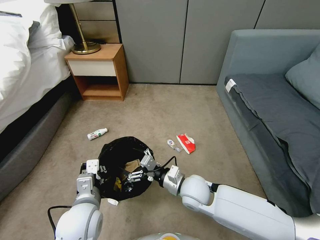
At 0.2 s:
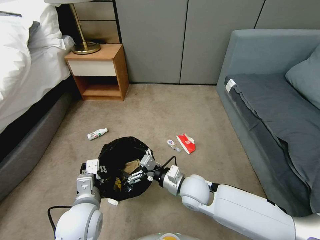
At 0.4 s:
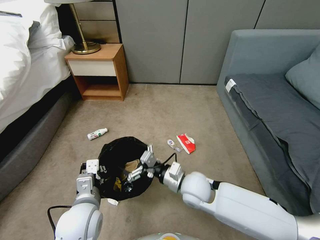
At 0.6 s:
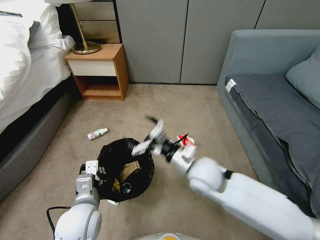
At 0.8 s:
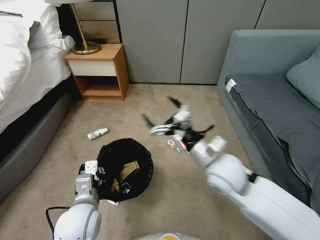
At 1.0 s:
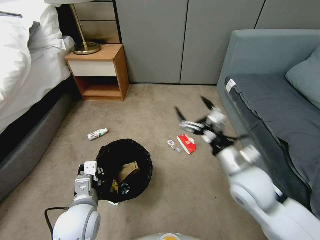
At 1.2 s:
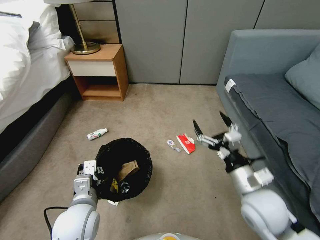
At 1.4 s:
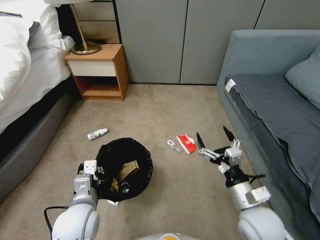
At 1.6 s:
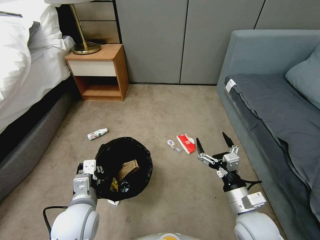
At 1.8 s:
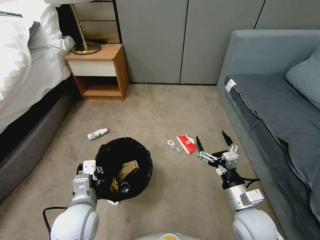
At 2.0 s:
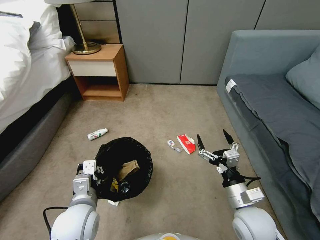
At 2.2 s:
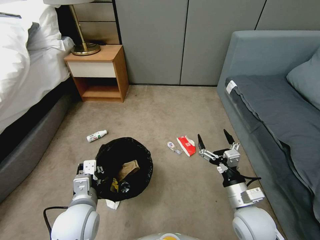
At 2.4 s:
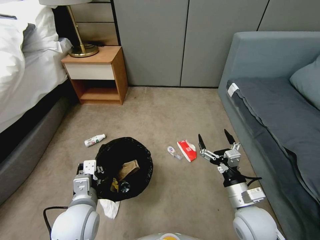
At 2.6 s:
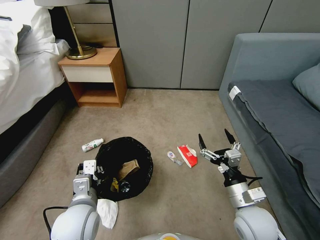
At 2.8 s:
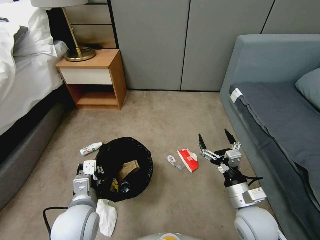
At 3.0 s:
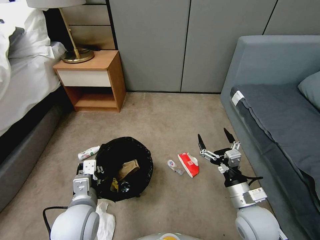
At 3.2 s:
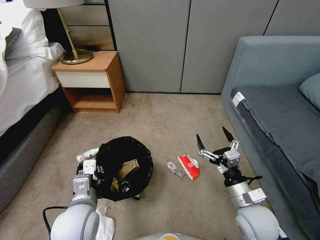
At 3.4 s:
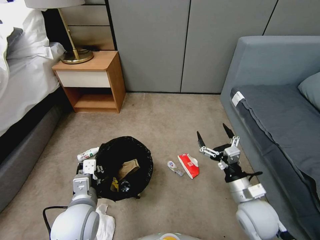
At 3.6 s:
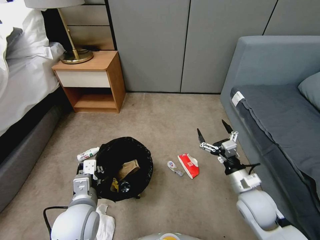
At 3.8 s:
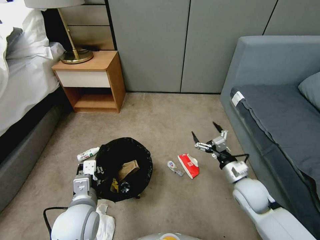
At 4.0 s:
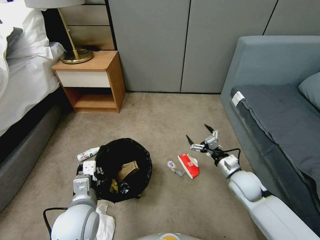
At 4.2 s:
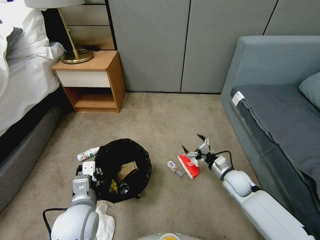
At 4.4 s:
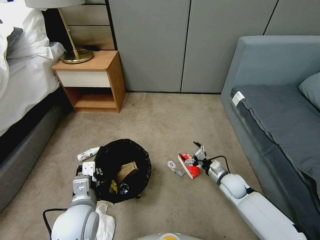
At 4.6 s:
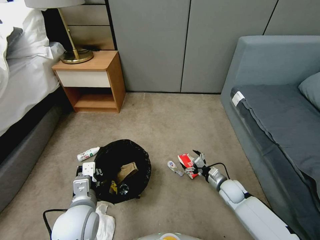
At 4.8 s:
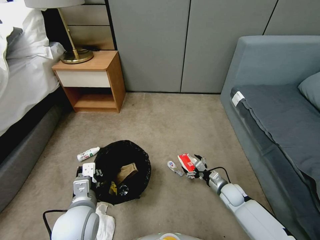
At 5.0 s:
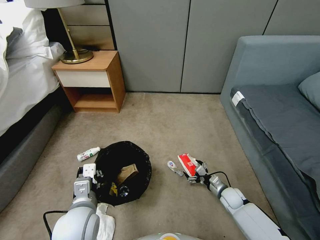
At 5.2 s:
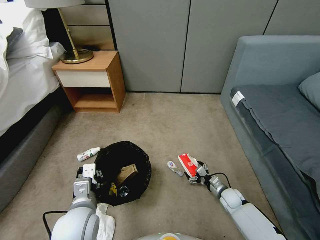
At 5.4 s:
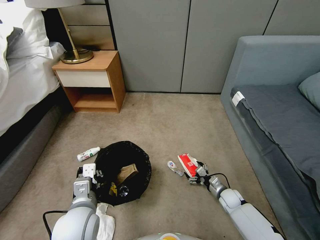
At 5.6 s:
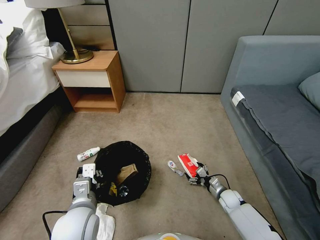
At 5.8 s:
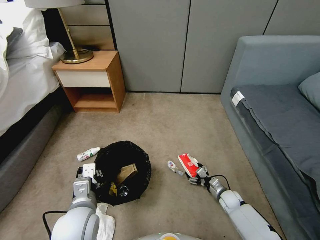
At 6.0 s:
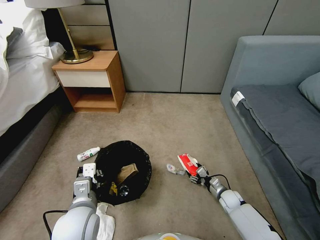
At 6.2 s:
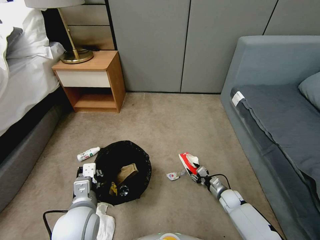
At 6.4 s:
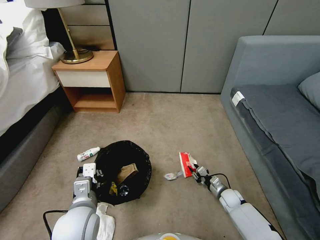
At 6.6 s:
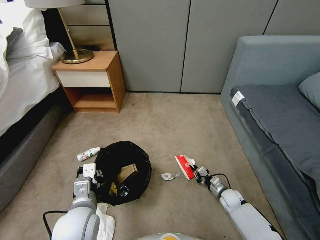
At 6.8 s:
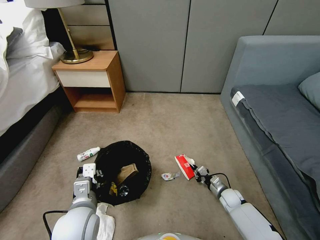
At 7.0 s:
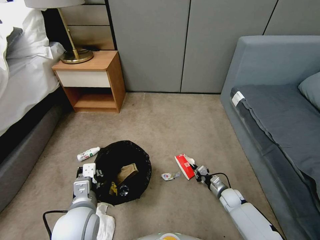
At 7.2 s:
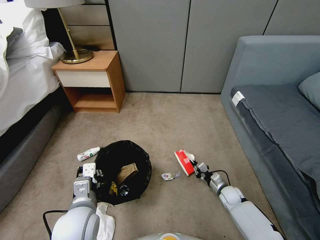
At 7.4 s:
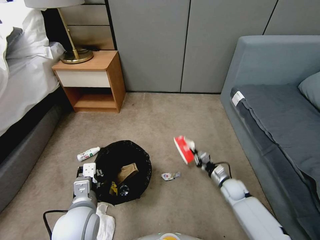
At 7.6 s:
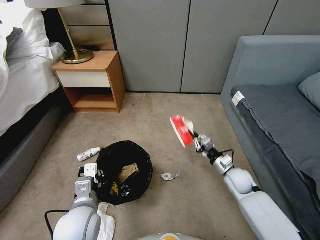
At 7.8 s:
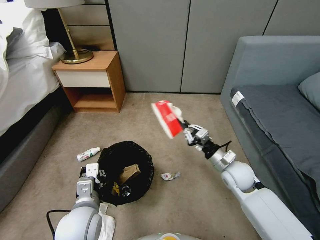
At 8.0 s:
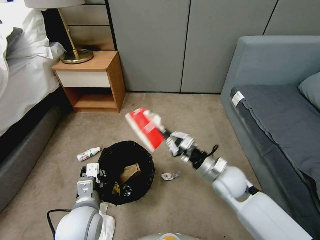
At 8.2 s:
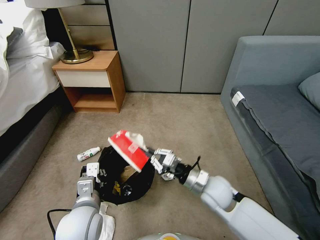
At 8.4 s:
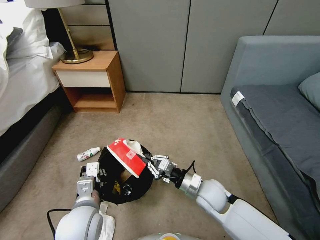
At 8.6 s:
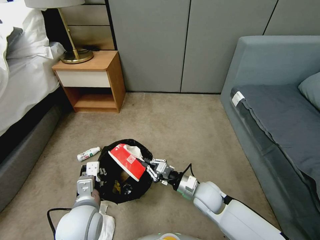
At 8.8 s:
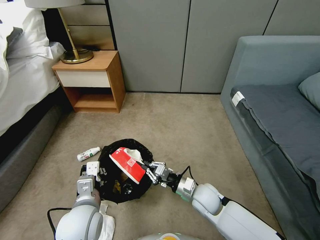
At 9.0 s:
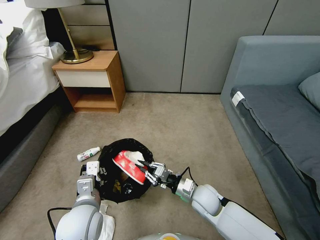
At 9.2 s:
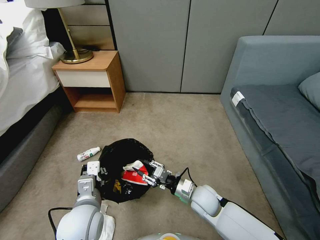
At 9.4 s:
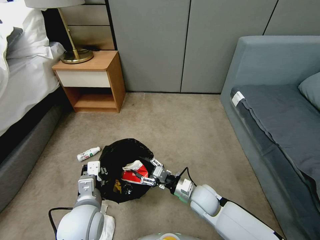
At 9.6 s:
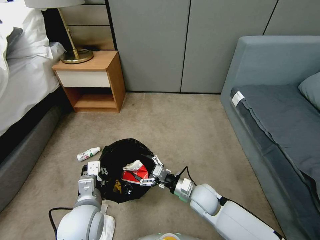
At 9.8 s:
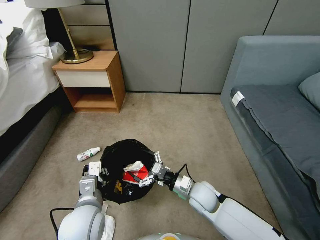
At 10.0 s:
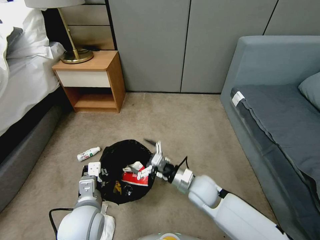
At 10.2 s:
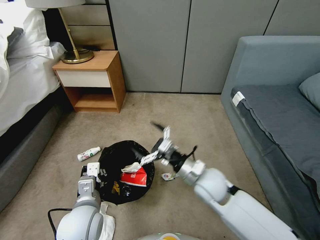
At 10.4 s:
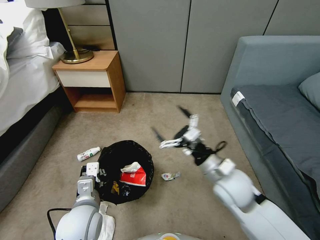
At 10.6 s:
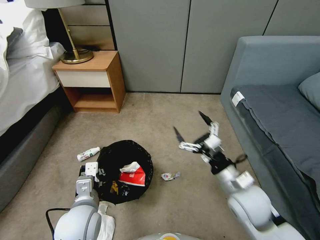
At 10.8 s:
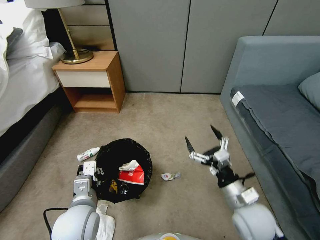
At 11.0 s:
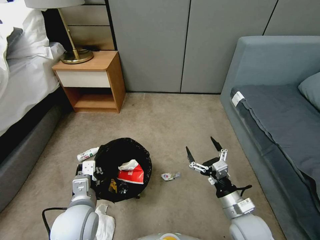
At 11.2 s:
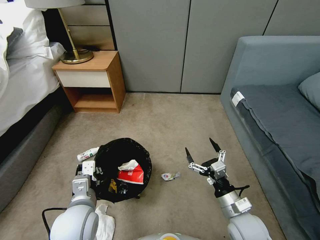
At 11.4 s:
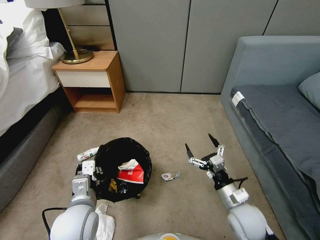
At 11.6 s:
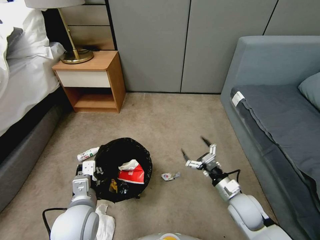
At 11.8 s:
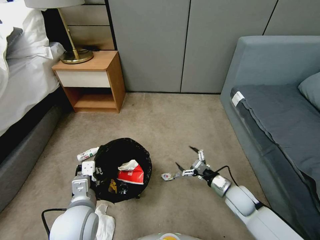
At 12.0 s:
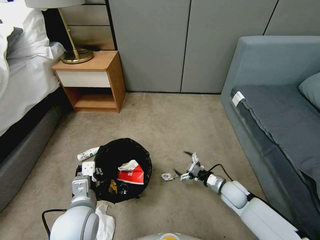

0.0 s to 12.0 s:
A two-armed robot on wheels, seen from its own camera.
Task of the whole recording: Pick up the trash bin, then pick up the garbage from the floor and place it into the trash bin.
0.0 to 1.6 s: The right gripper moves to the right and backward, approximately 20 cm.
3.0 to 4.4 s: The right gripper heads forward and downward, covering some 20 cm.
4.4 to 6.0 s: The right gripper travels downward by about 15 cm.
6.0 to 7.6 s: The right gripper shifts approximately 15 cm upward, and closes its fingers.
7.6 to 9.0 s: The right gripper travels to the left and backward by approximately 15 cm.
9.0 to 10.4 s: The right gripper travels upward by roughly 15 cm, and opens its fingers.
10.4 to 12.0 s: The right gripper is displaced downward and to the right by some 25 cm.

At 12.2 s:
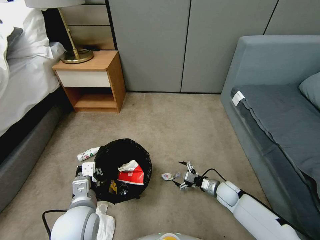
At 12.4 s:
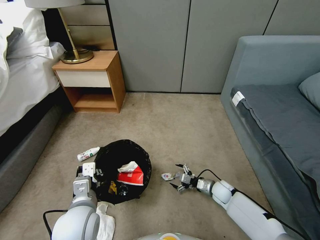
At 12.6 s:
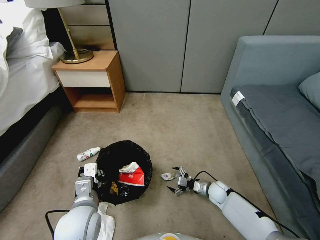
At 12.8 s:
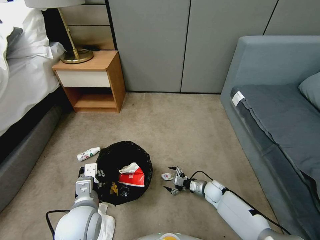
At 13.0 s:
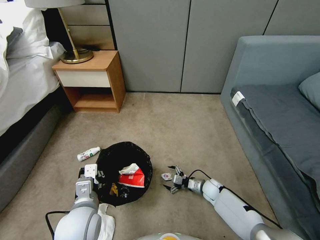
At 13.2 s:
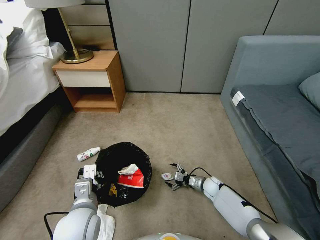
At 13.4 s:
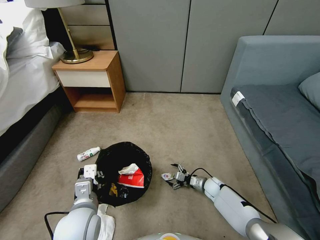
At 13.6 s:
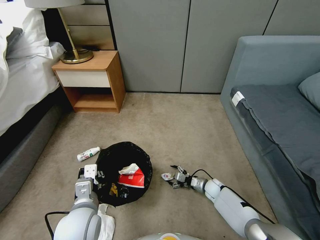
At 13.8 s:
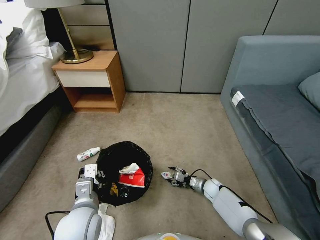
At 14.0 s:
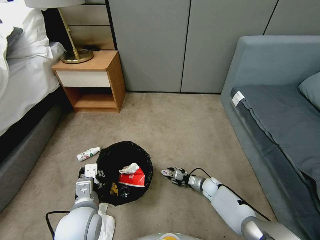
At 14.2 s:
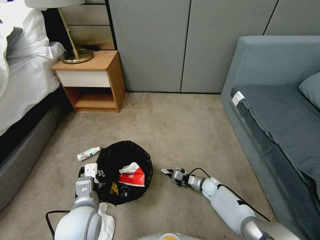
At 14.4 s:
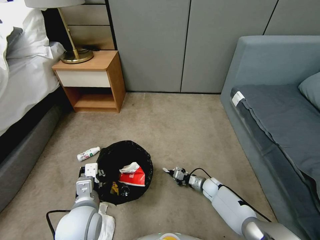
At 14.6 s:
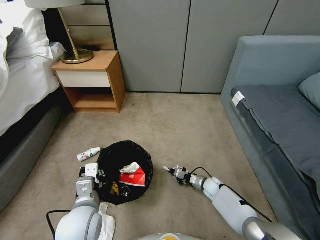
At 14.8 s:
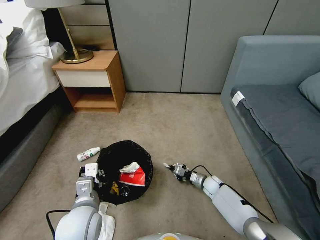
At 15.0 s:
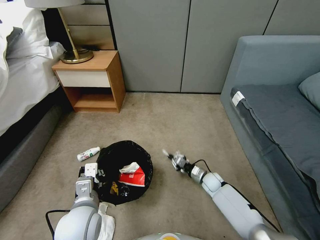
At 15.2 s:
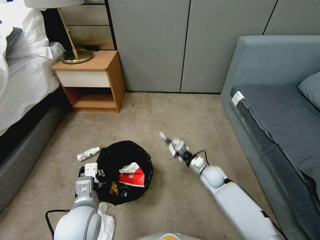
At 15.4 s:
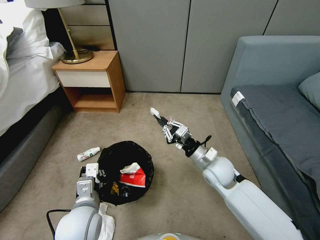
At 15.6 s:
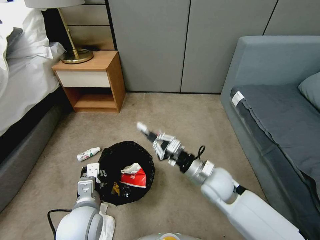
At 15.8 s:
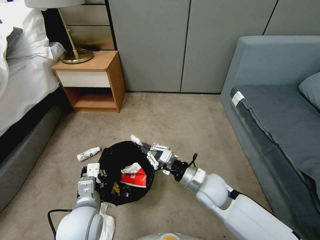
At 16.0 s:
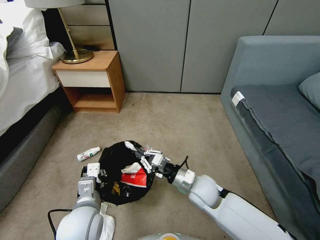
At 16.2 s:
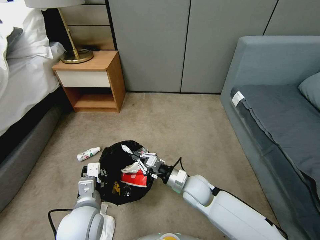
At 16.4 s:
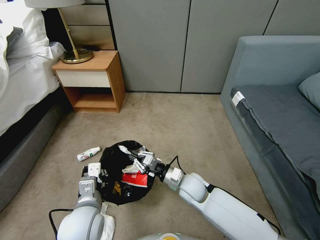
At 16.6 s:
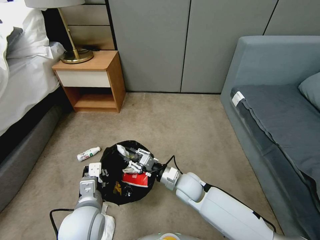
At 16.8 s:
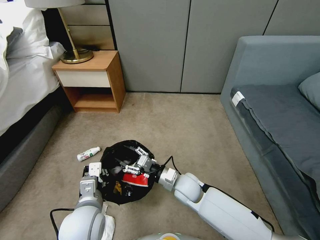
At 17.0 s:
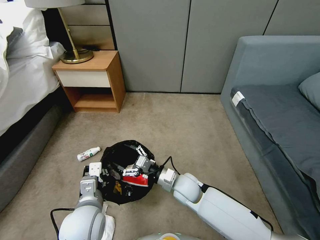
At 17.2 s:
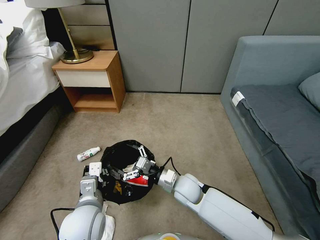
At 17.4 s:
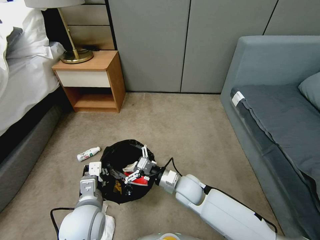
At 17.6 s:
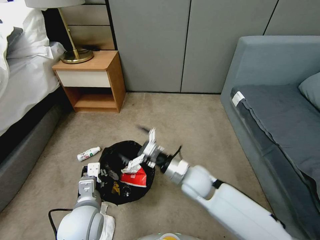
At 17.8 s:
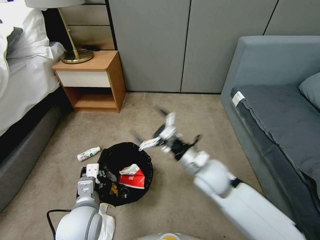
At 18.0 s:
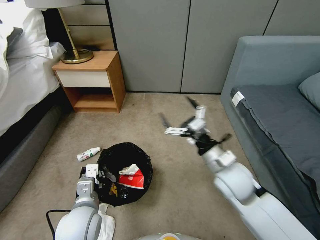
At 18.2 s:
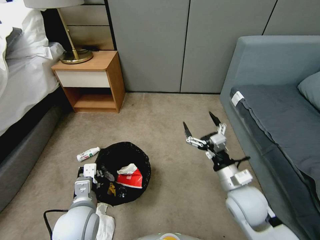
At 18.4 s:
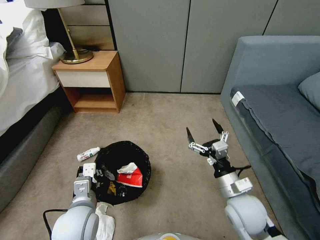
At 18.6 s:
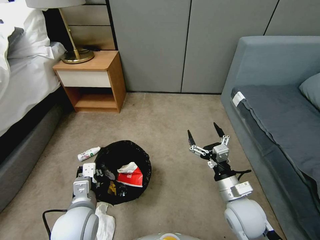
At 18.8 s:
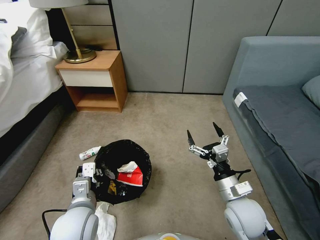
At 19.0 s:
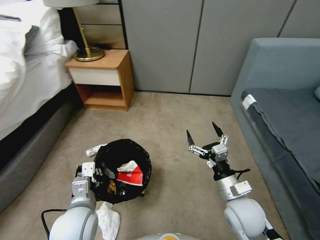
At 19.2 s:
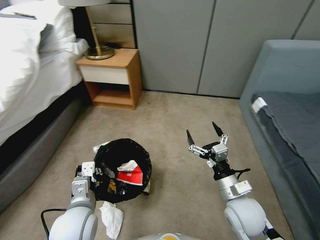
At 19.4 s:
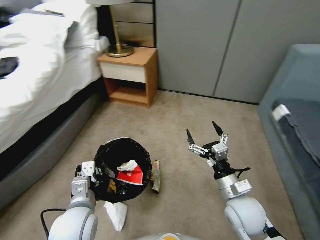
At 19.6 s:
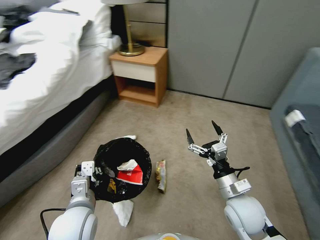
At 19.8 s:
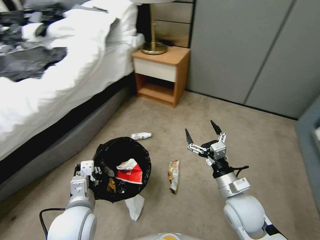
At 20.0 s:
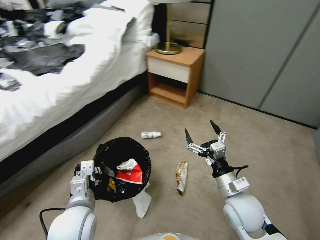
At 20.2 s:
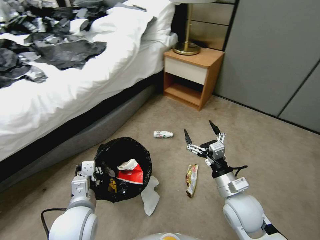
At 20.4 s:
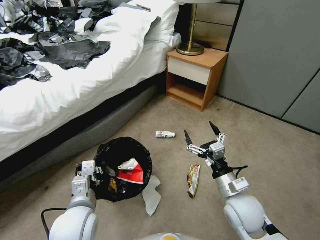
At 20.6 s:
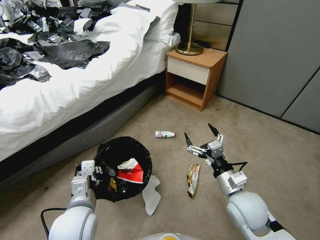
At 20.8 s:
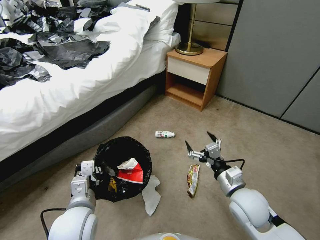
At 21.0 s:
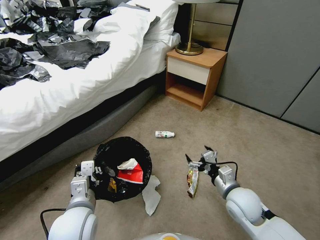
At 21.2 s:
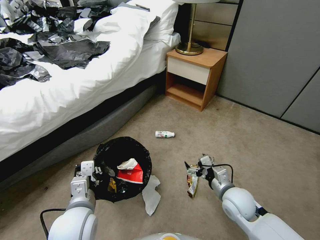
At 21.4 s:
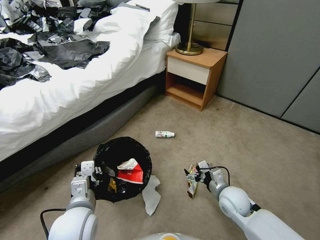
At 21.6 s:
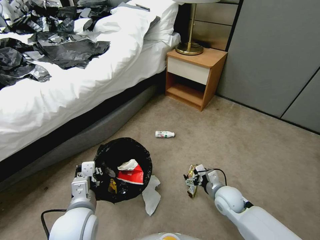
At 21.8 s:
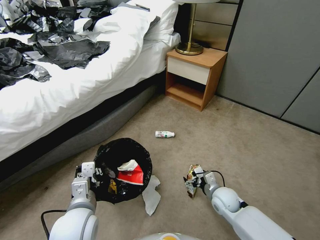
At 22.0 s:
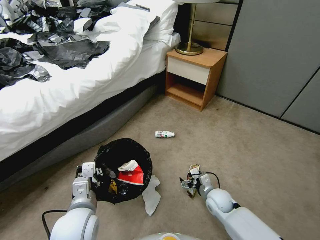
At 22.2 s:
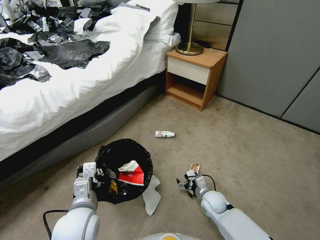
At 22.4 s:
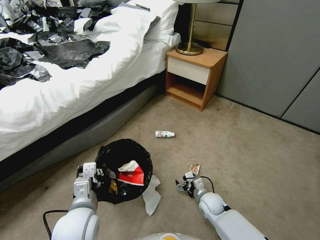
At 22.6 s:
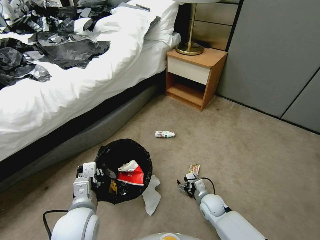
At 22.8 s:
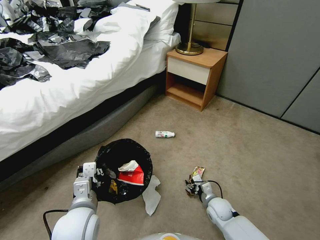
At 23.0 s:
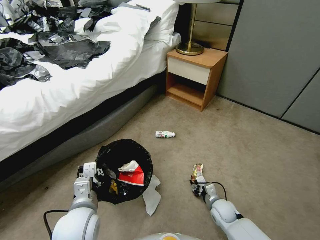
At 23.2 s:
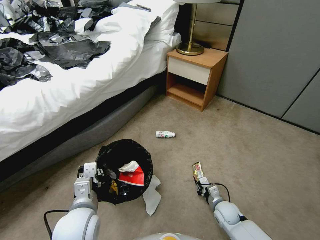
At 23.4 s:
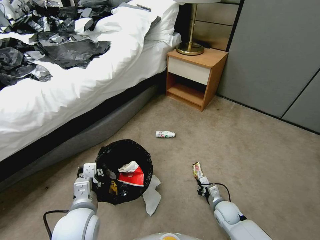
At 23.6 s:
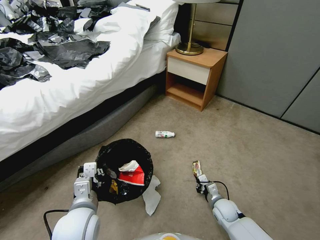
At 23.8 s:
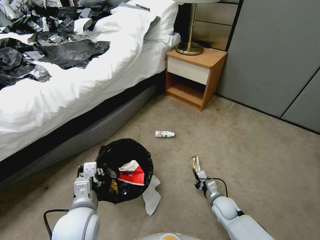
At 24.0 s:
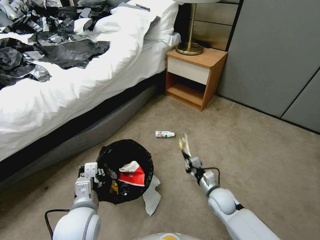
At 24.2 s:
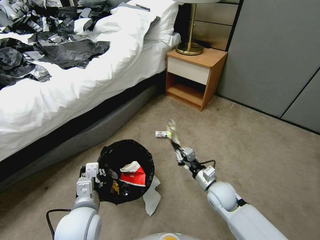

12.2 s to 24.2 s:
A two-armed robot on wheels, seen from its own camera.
Task of the whole recording: Pick up the trash bin, then pick up the garbage from the floor and place it into the trash bin.
12.2 to 13.8 s: The right gripper moves downward, some 5 cm, and closes up.
13.8 to 15.2 s: The right gripper is displaced upward by roughly 15 cm, and closes up.
15.2 to 16.6 s: The right gripper moves to the left and backward, roughly 15 cm, and reaches roughly 15 cm upward, then returns.
16.6 to 18.2 s: The right gripper heads to the right, upward and backward, covering approximately 20 cm, and opens its fingers.
19.8 to 21.2 s: The right gripper is displaced downward by roughly 5 cm.
21.2 to 22.6 s: The right gripper goes approximately 15 cm downward.
22.6 to 24.2 s: The right gripper travels upward by approximately 15 cm, and closes up.
